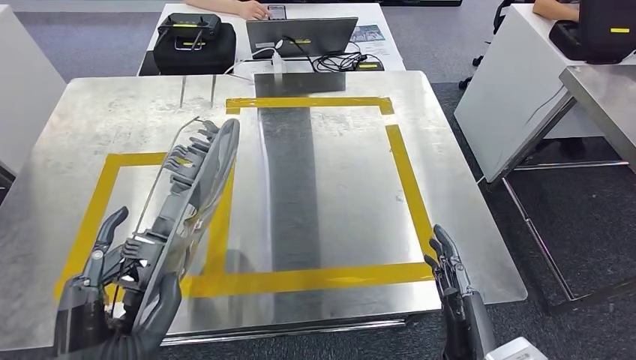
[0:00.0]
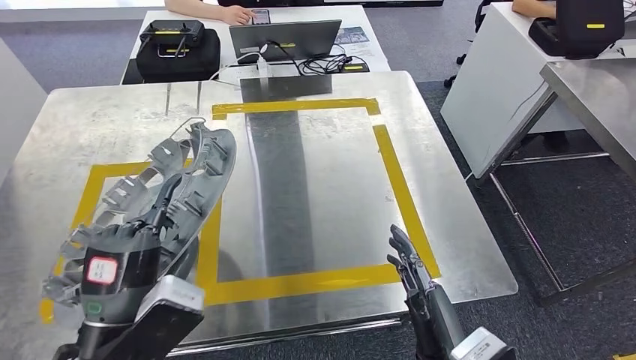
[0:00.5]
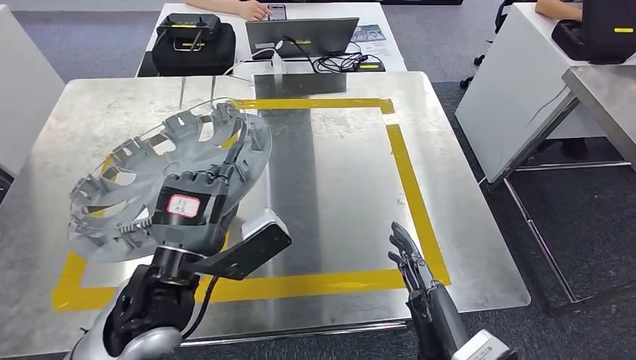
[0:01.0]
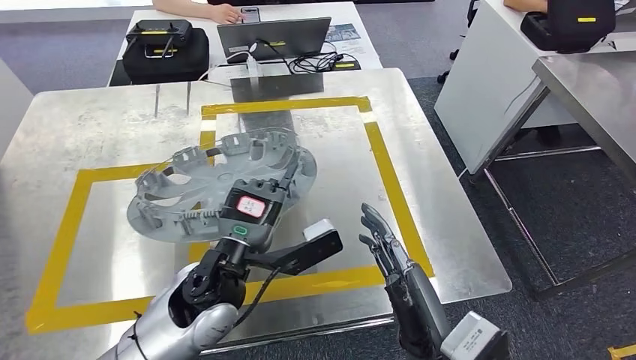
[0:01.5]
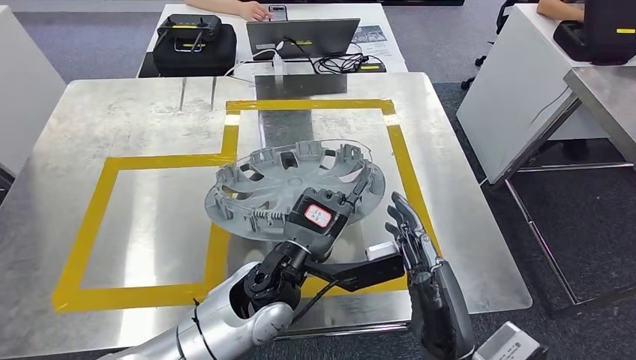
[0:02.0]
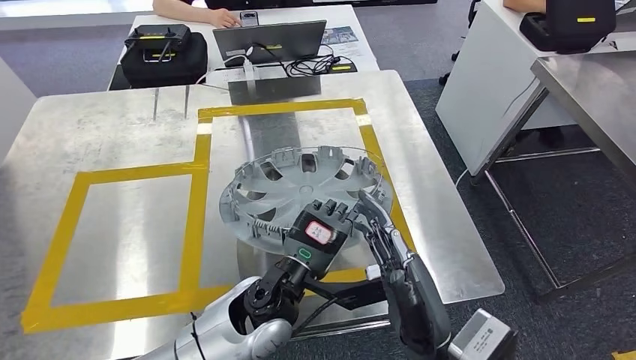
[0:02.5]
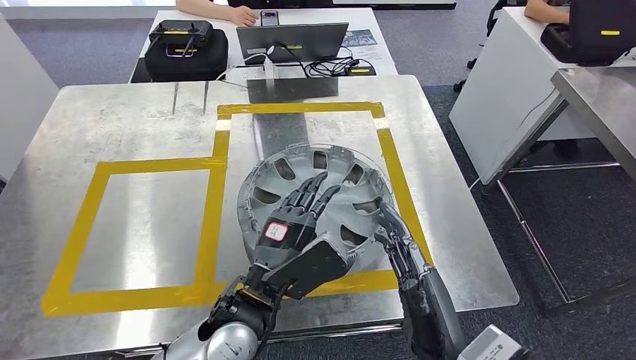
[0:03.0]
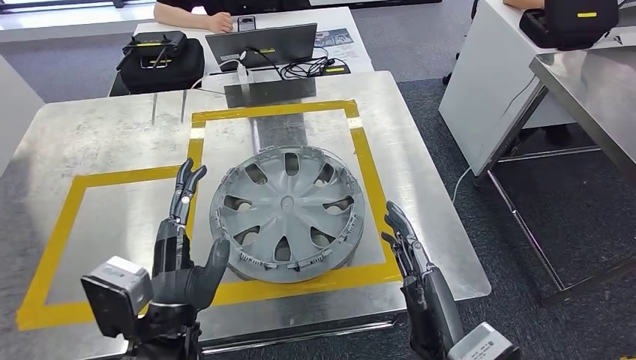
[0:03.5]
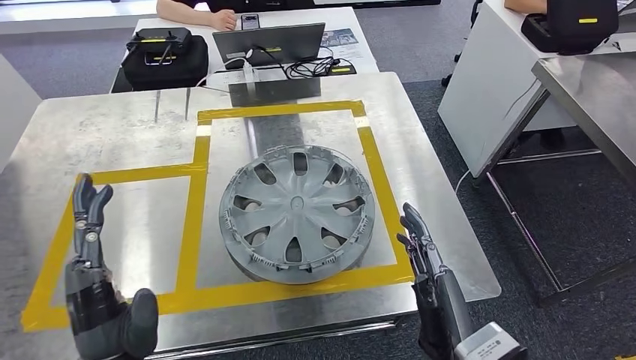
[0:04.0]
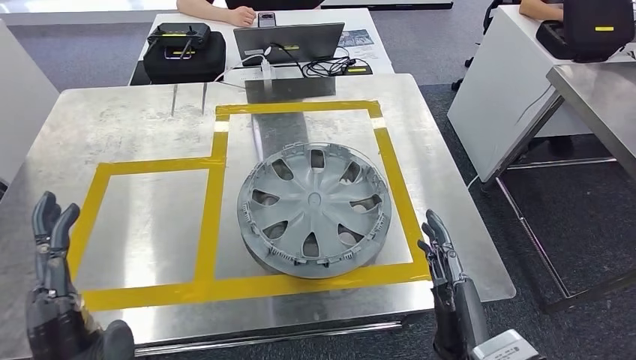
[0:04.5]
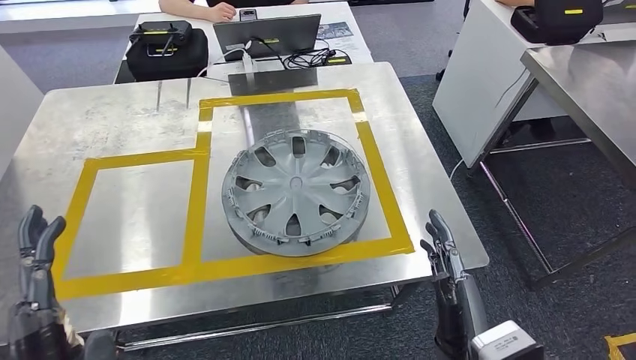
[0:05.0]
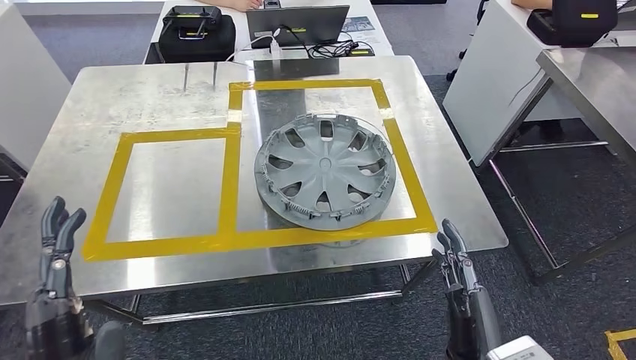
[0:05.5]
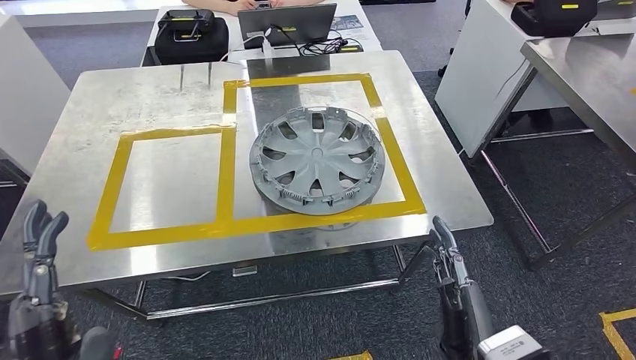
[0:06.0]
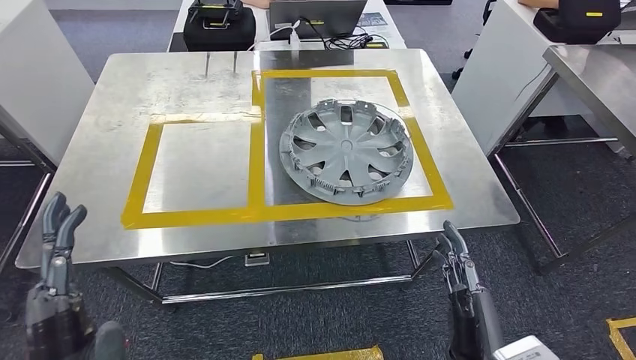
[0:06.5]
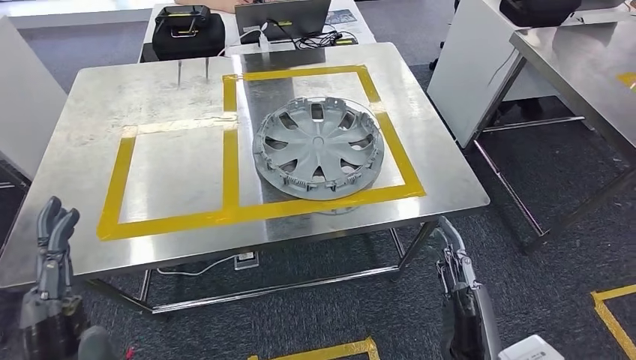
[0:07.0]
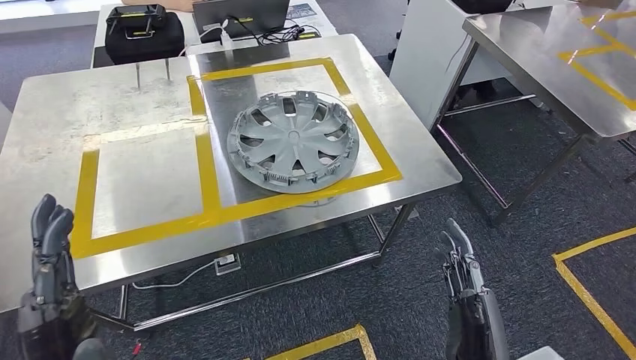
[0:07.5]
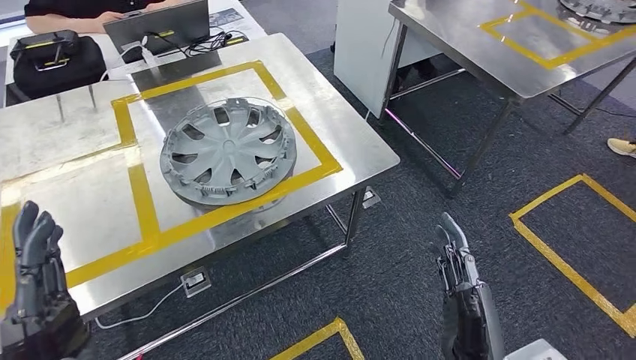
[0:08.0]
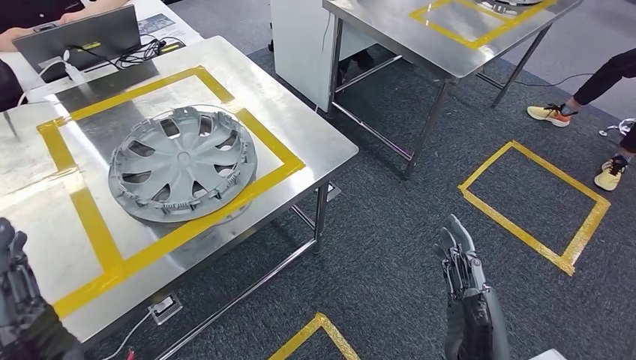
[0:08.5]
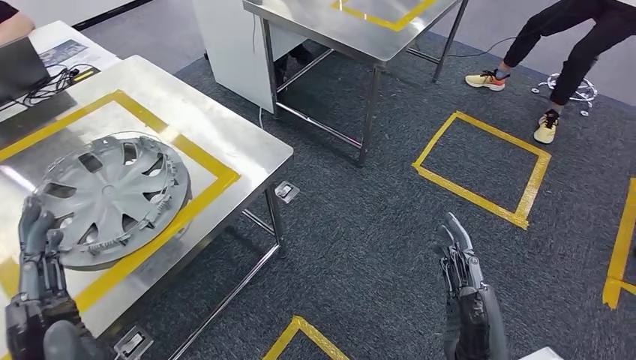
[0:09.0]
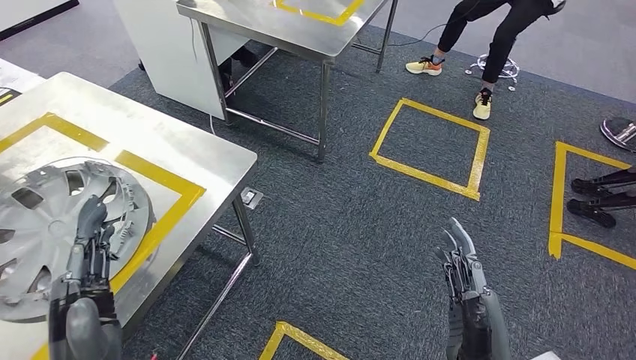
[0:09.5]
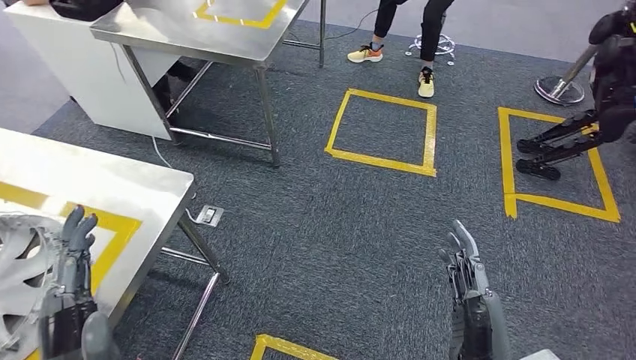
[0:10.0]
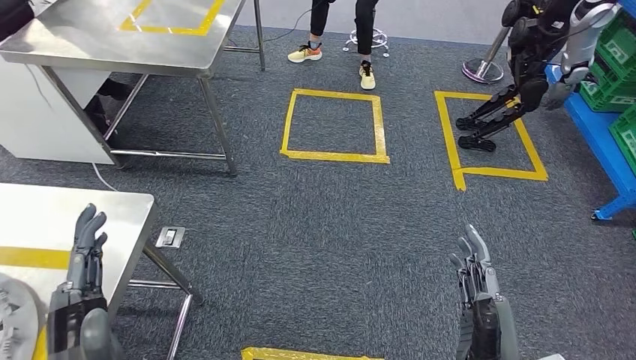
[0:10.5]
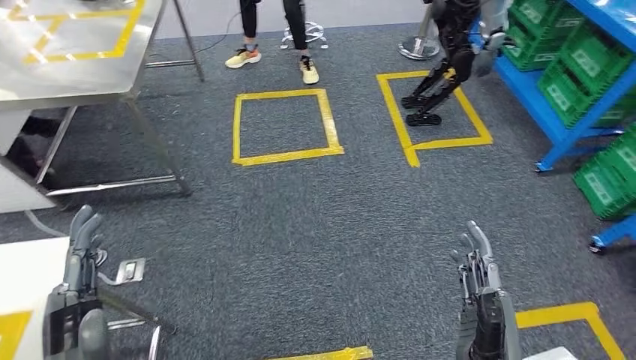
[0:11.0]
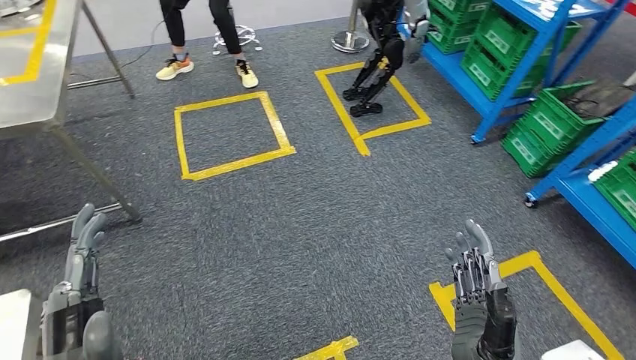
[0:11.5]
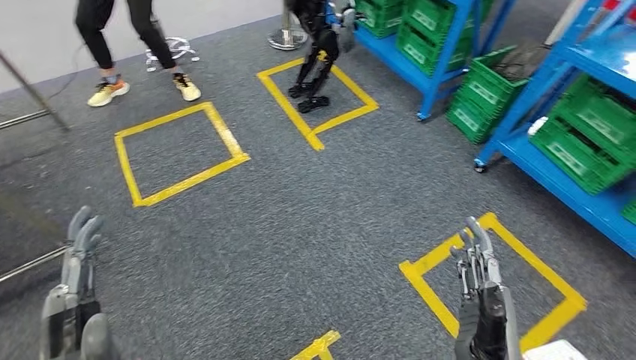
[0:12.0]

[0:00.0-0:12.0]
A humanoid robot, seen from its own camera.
Step, 0:00.0 to 0:03.0: Insert the small component into the corresponding slot on the workbench.

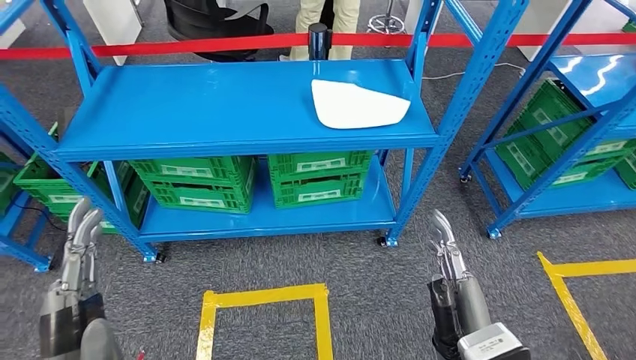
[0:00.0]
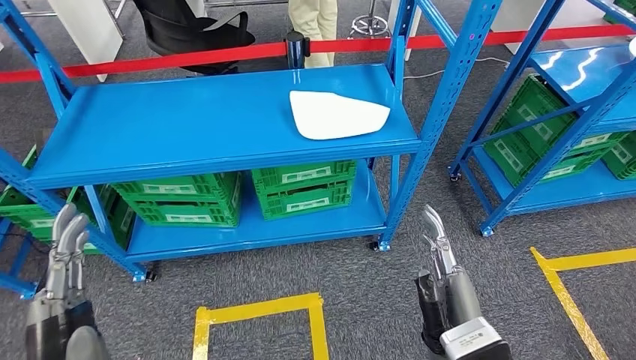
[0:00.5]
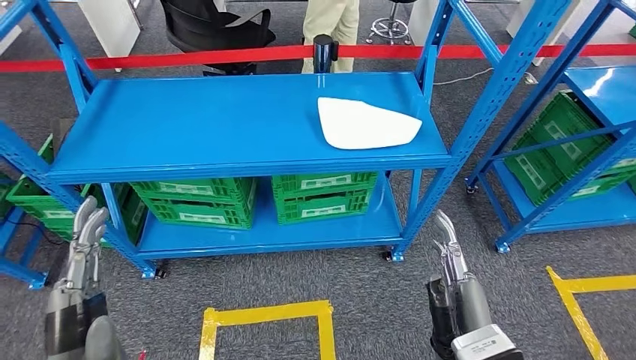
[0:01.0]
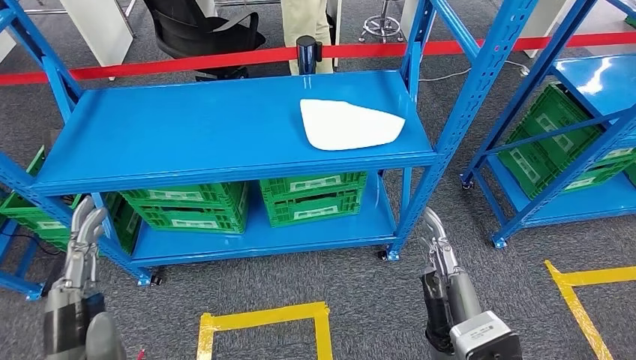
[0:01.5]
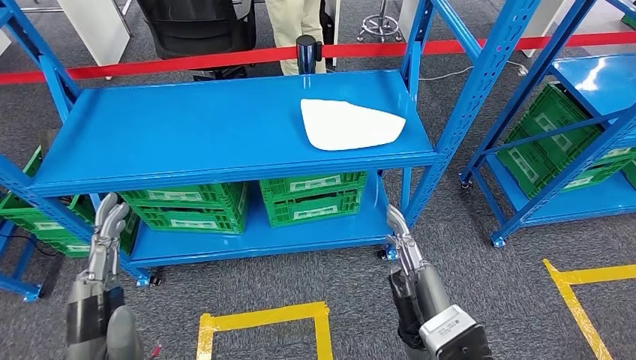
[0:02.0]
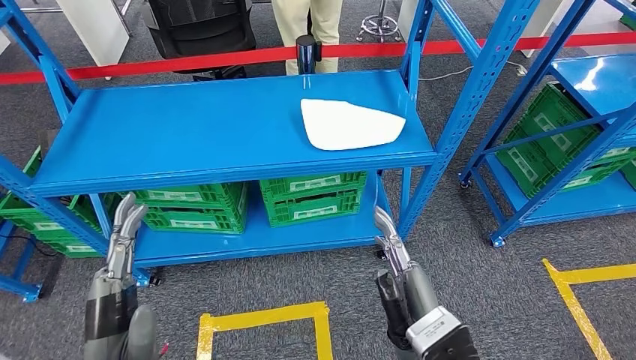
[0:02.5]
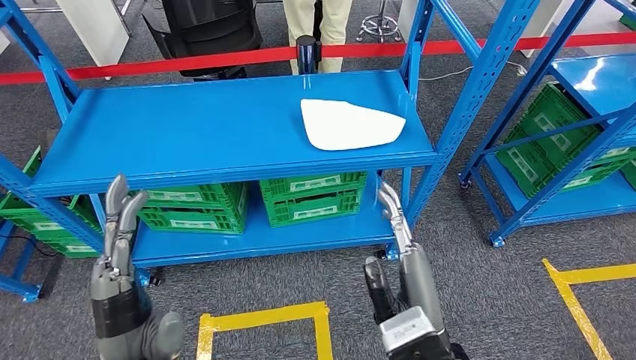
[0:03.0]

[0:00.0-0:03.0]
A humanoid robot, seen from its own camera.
Step, 0:00.0 to 0:03.0: Move to the initial position at the workbench.
0:01.5 to 0:03.0: The right hand shifts by approximately 5 cm. The left hand shifts by some 5 cm.
